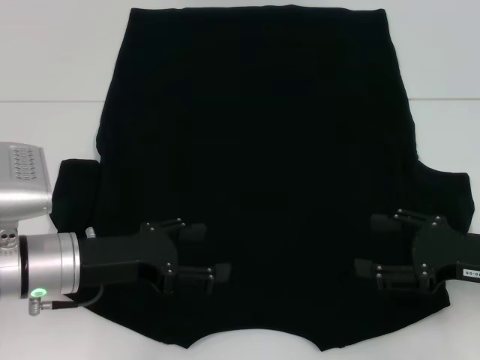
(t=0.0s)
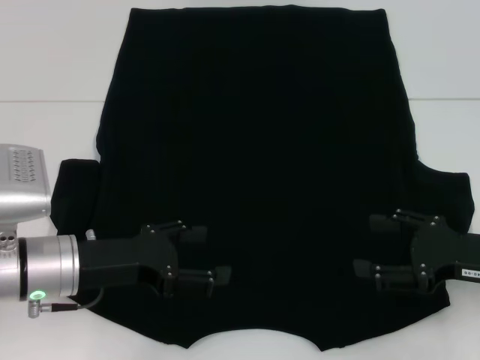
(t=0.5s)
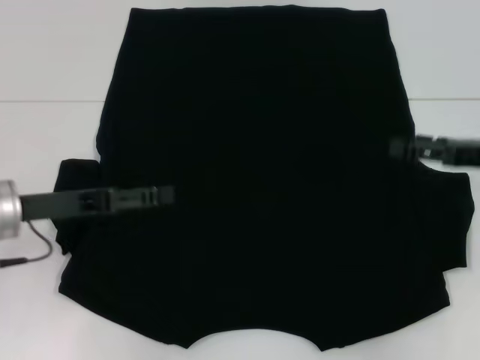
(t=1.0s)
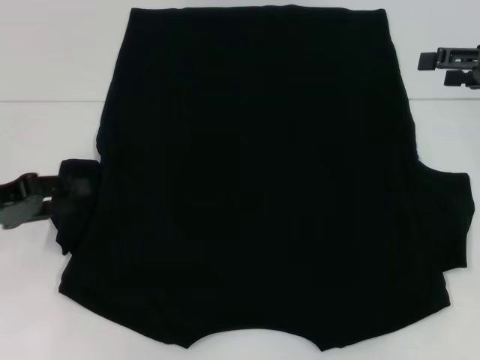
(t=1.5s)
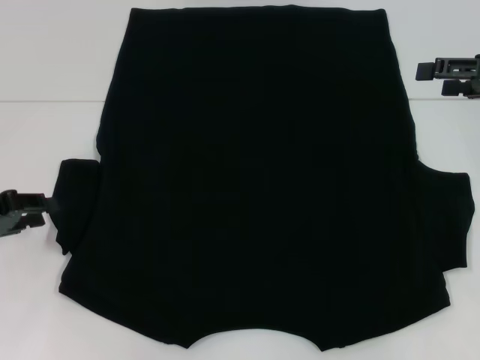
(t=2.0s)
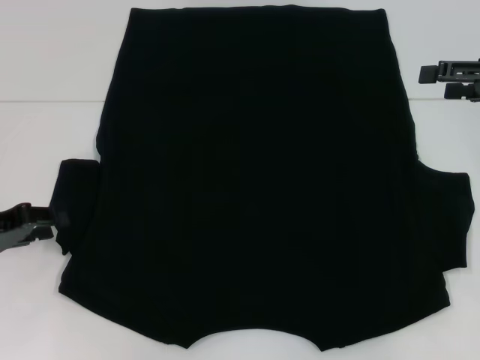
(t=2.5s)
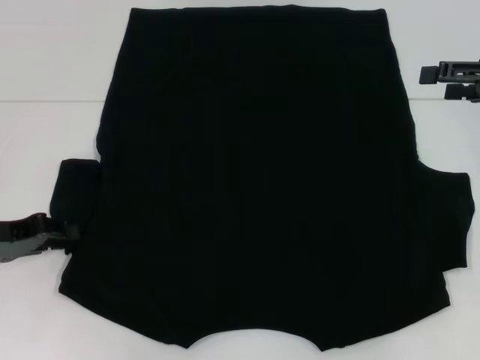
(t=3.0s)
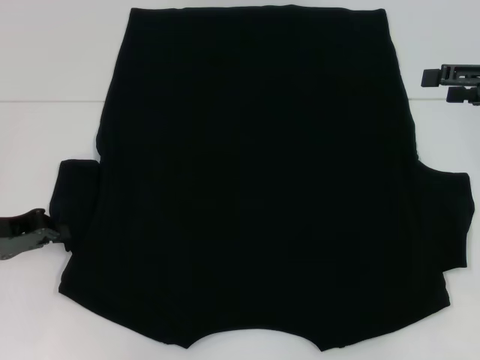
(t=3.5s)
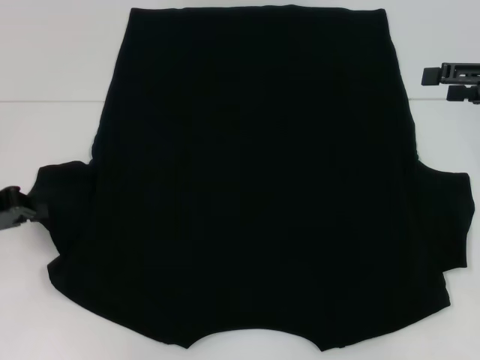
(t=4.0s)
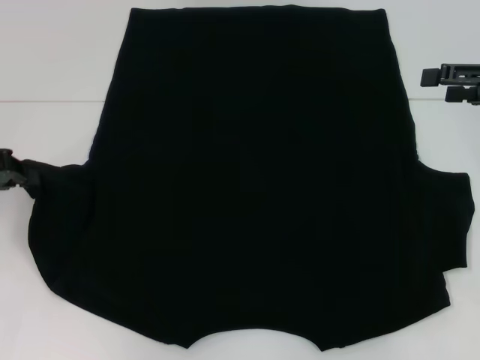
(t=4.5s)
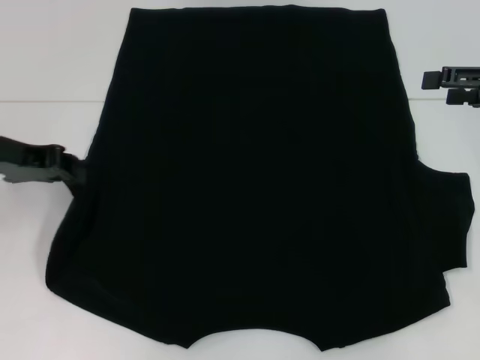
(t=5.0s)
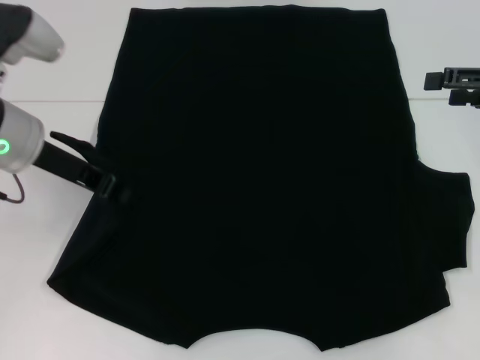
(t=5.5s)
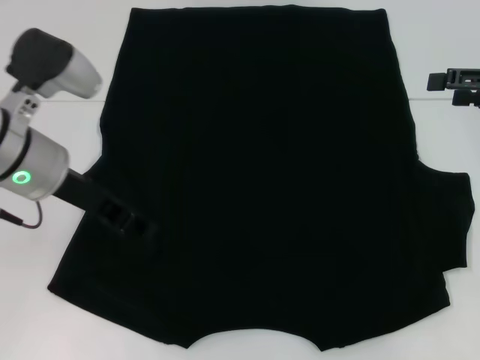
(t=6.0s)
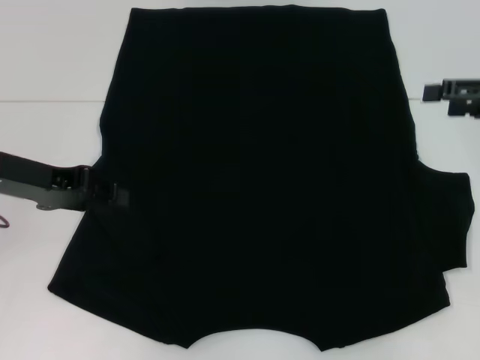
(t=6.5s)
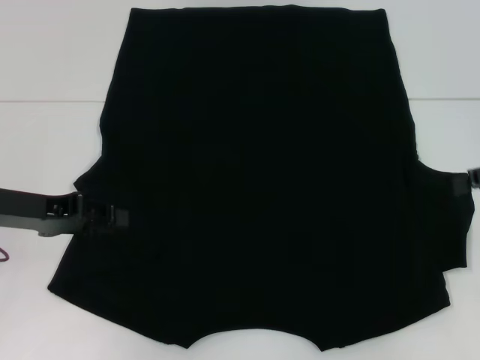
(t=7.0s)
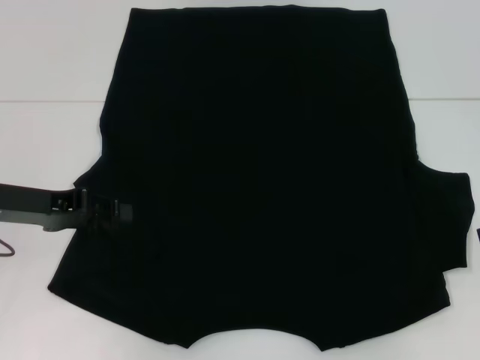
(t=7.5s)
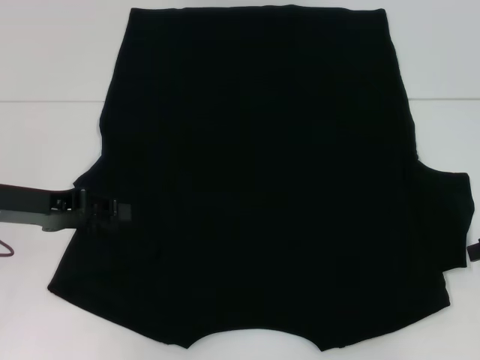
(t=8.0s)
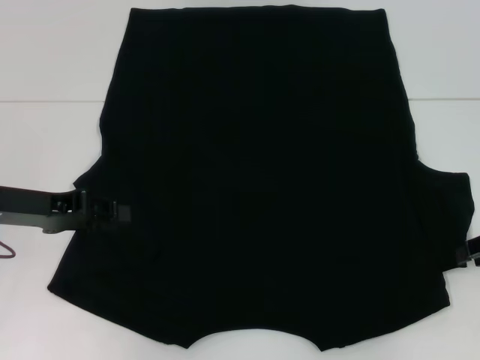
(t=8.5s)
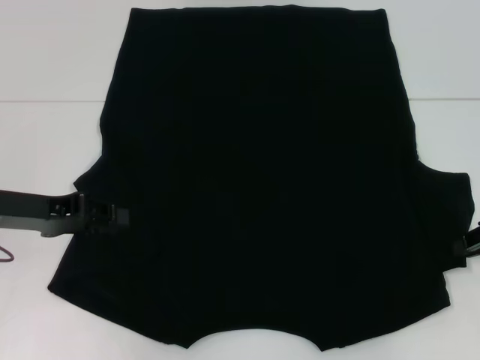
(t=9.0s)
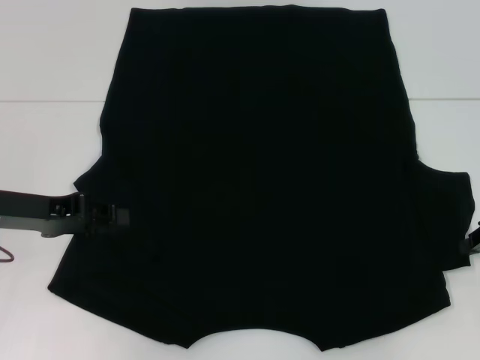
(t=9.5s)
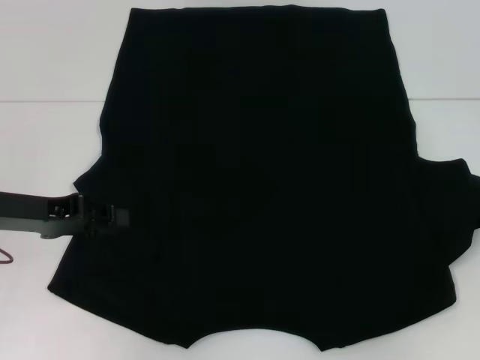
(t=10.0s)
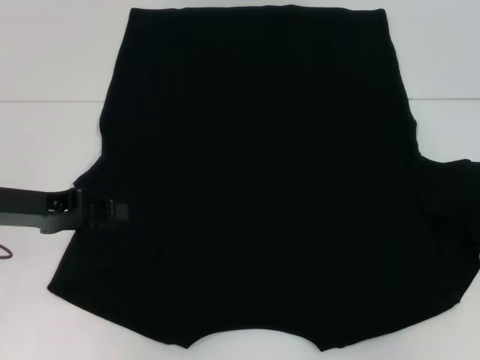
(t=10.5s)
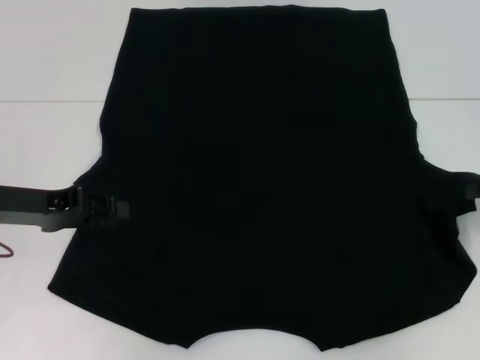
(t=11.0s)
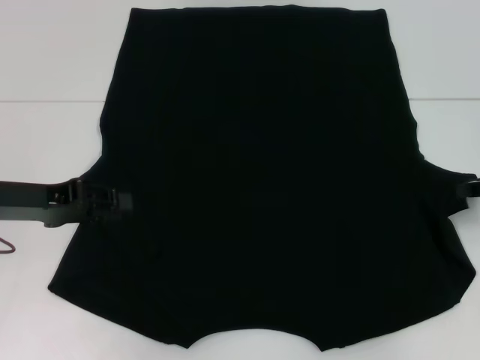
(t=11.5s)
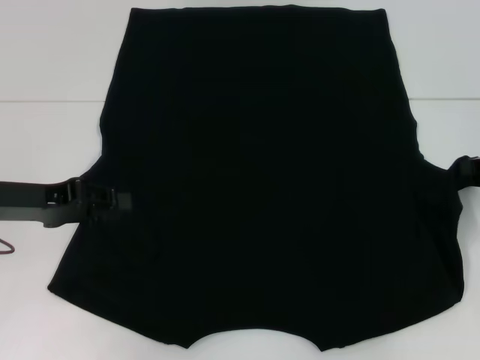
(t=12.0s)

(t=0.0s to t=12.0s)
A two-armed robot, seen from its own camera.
Step, t=0.0s - t=5.5s: Fold the bottom left sleeve with your left hand.
t=0.0s - t=2.0s: The right gripper goes some 15 cm upward and forward; the left gripper heads to the left, covering roughly 15 cm, and closes.
t=2.0s - t=4.0s: The left gripper closes.
t=4.0s - t=6.0s: The left gripper goes some 15 cm to the right.
t=6.0s - t=8.0s: The left gripper moves to the left, some 10 cm. Meanwhile the right gripper shifts roughly 10 cm downward and backward, and closes.
t=8.0s - t=10.0s: The right gripper closes its fingers.
t=10.0s - t=12.0s: The right gripper moves approximately 5 cm.

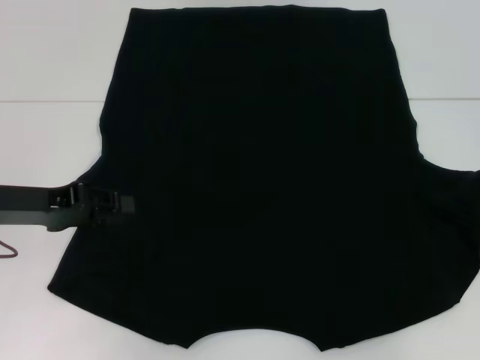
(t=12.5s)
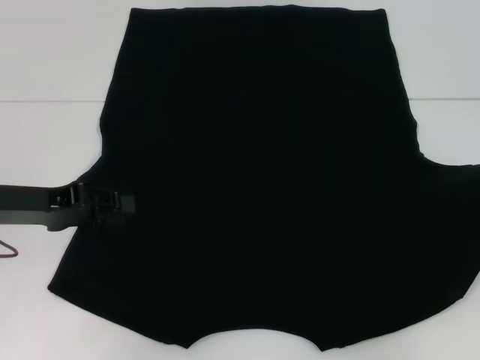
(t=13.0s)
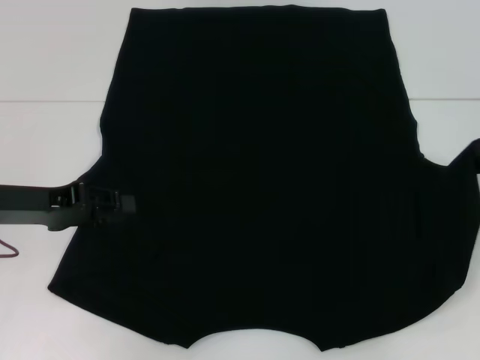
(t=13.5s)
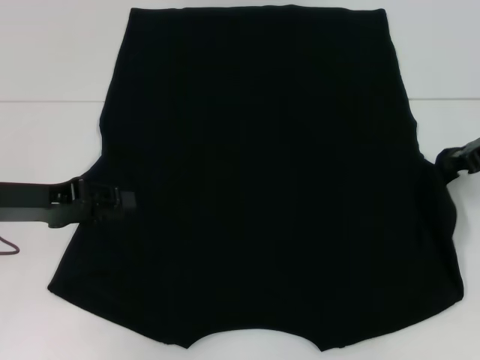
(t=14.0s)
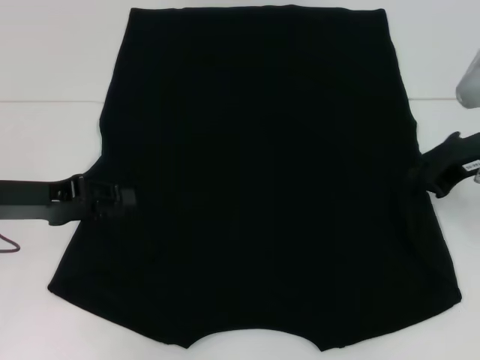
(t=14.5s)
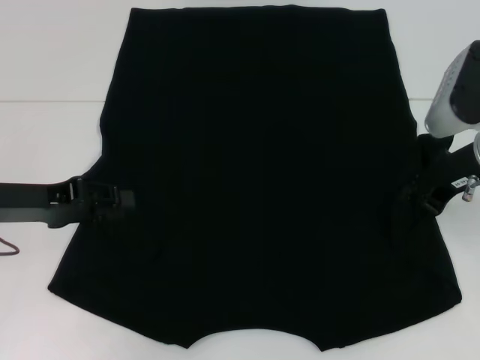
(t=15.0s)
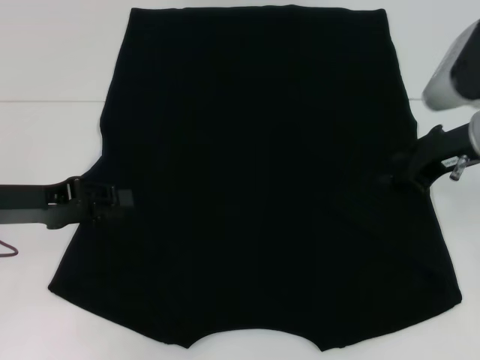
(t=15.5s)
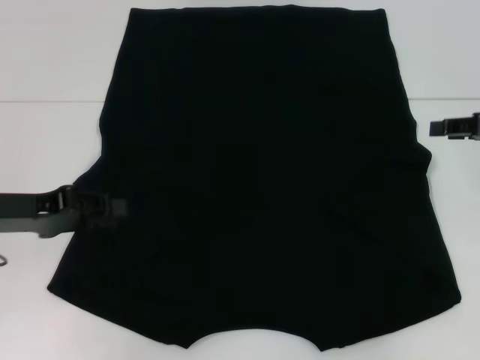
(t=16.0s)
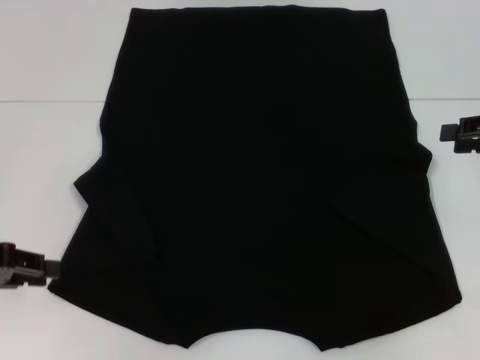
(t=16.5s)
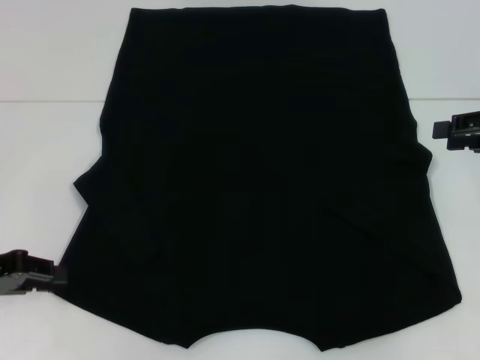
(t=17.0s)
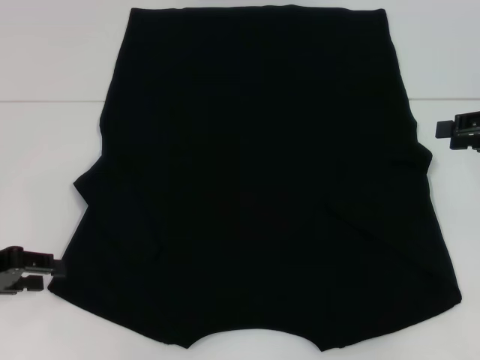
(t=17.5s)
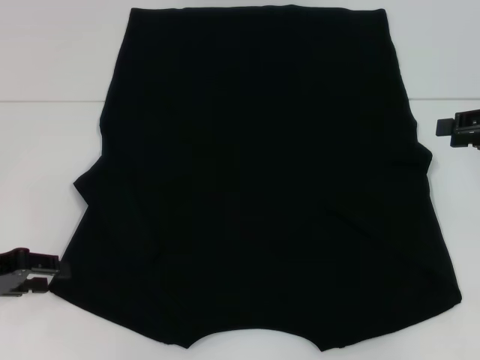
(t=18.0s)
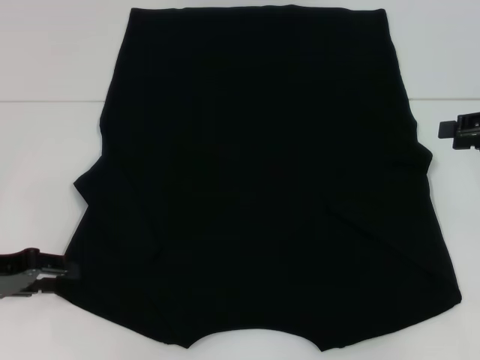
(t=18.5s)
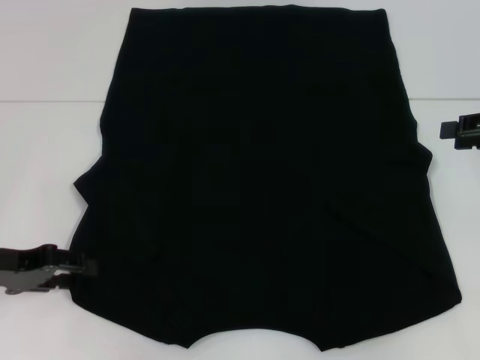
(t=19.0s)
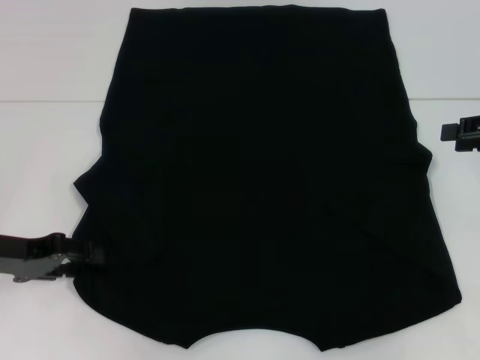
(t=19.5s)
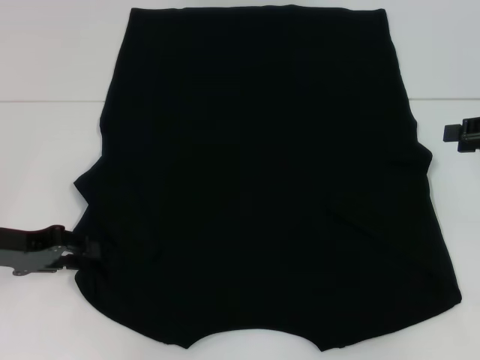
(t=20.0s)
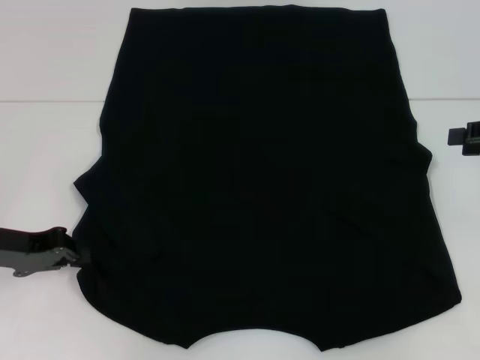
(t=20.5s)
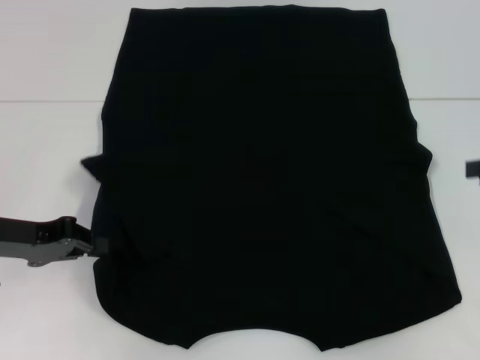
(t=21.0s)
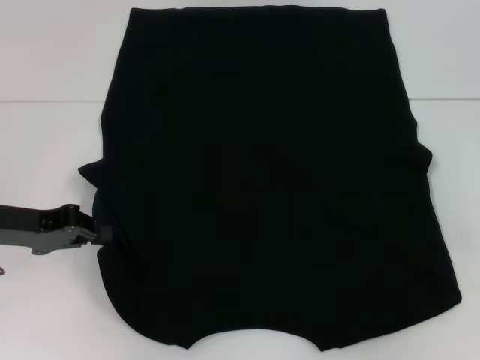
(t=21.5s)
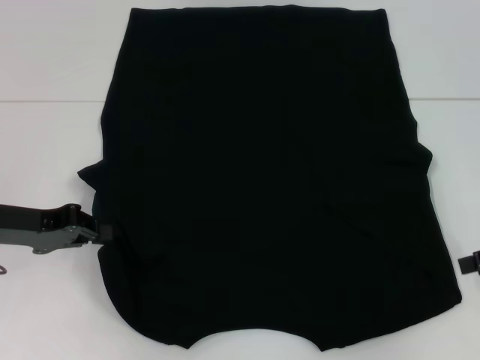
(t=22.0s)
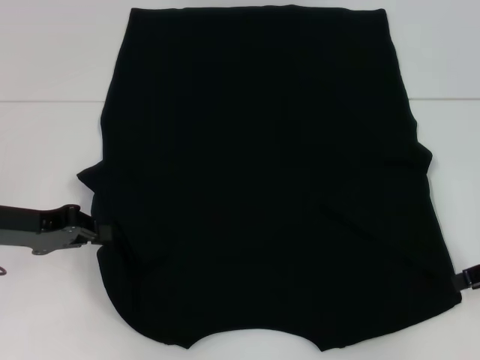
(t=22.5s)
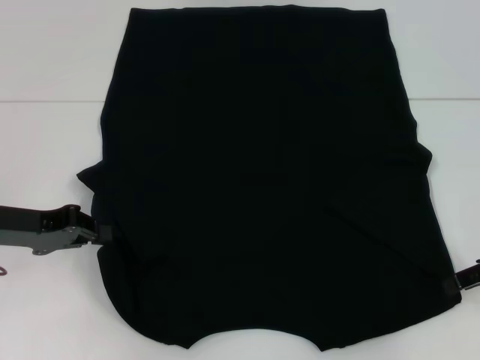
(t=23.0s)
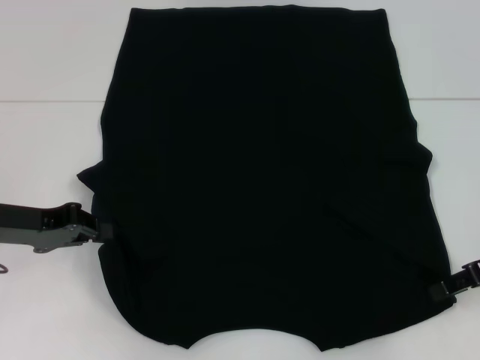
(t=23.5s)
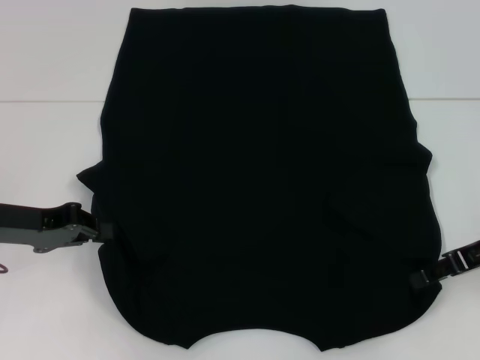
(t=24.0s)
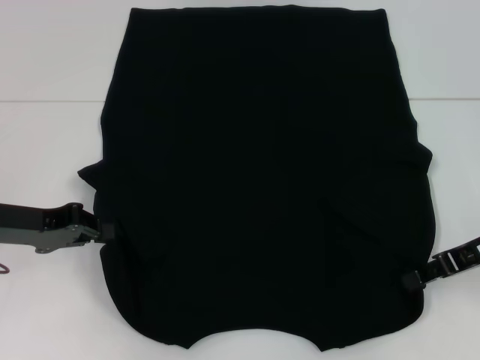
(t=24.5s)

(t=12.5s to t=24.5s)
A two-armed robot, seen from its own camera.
Step, t=12.5s - t=14.5s: Fold the bottom right sleeve with your right hand.
Step, t=15.0s - t=19.5s: Grab the bottom left corner with your left hand.
Step, t=20.0s - t=24.0s: Grab the bottom right corner with your right hand.
t=12.5s - t=14.5s: The right gripper shifts approximately 10 cm to the left.
t=14.5s - t=16.5s: The left gripper moves to the left and backward, roughly 10 cm, while the right gripper is displaced to the right by about 10 cm, and opens its fingers.
t=16.5s - t=18.5s: The grippers make only small movements.
t=18.5s - t=20.5s: The left gripper closes its fingers.
t=20.5s - t=22.5s: The right gripper is displaced downward by some 5 cm.
t=22.5s - t=24.5s: The right gripper goes approximately 5 cm to the left.

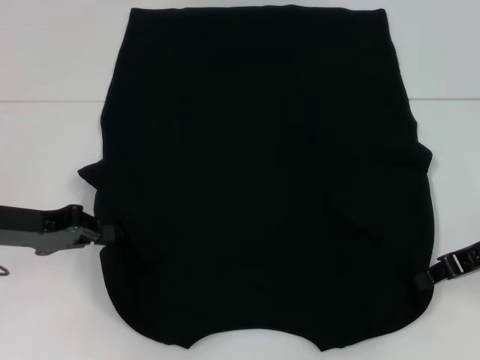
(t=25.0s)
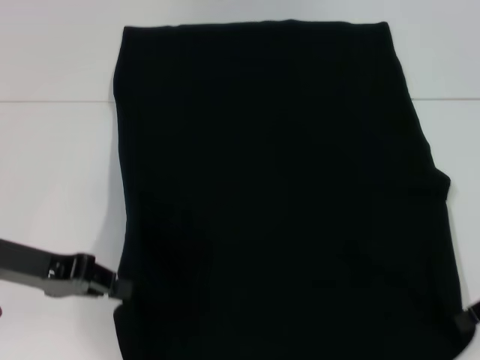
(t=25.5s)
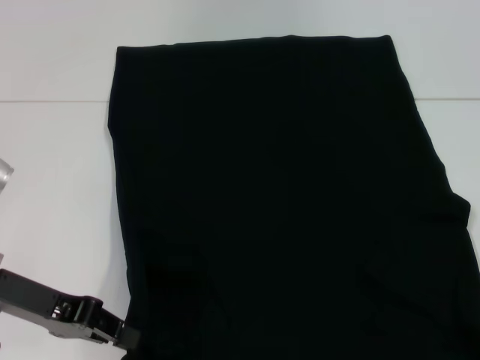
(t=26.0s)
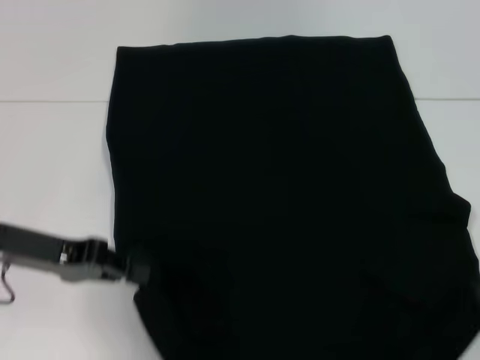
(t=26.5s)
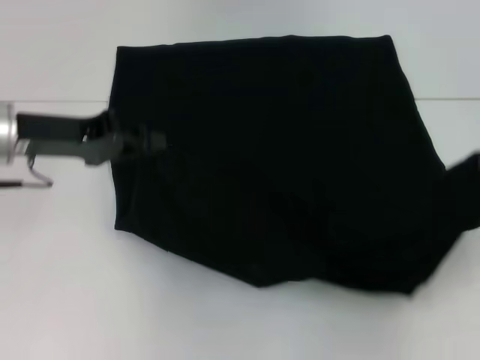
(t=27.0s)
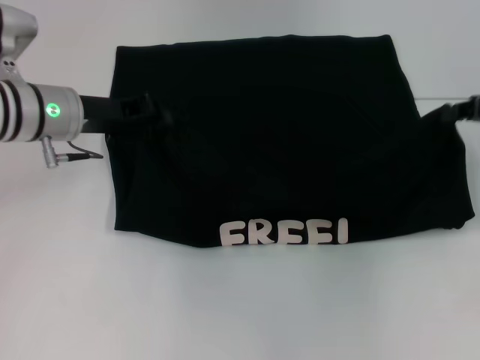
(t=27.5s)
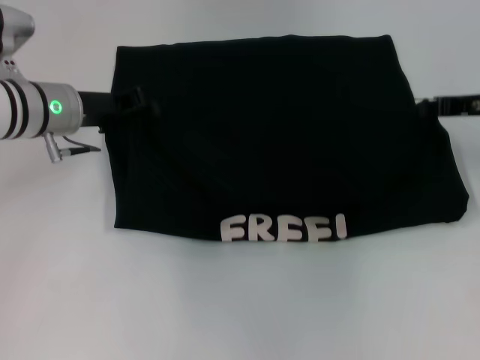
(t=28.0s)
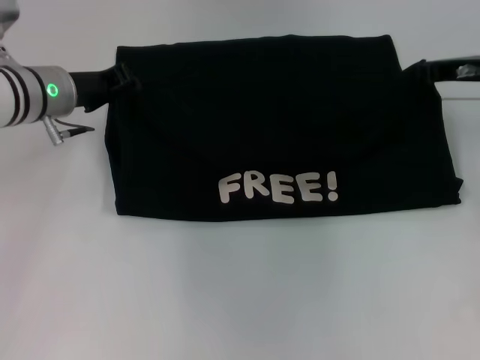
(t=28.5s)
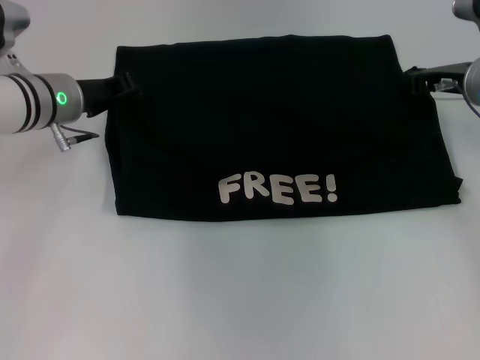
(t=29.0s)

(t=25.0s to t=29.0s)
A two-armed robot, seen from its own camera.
t=25.0s - t=27.0s: The left gripper is displaced upward by roughly 5 cm. The right gripper shifts about 10 cm upward and to the right.
t=27.0s - t=29.0s: The left gripper goes approximately 10 cm forward. The right gripper is displaced forward, to the left and downward by some 20 cm.
